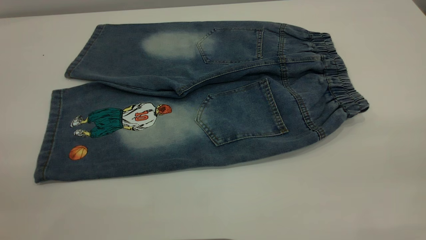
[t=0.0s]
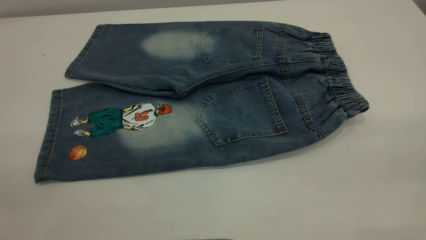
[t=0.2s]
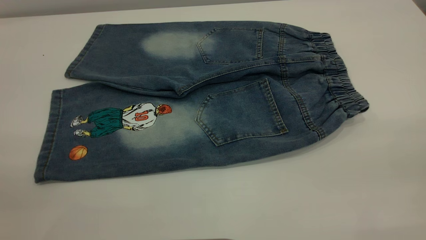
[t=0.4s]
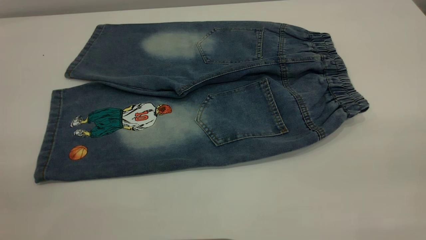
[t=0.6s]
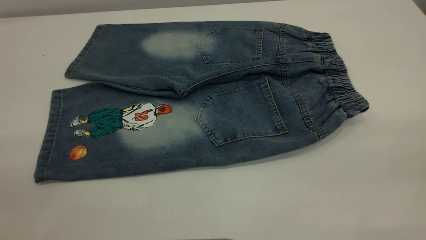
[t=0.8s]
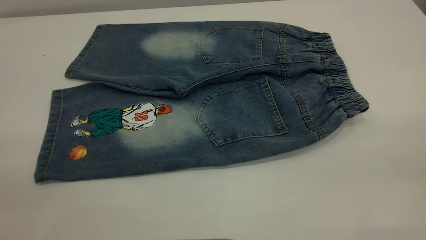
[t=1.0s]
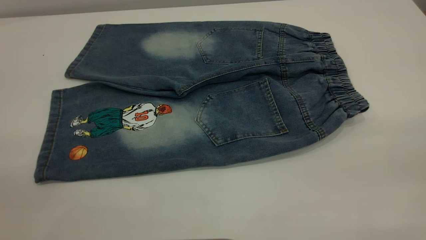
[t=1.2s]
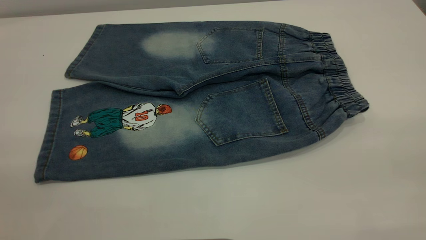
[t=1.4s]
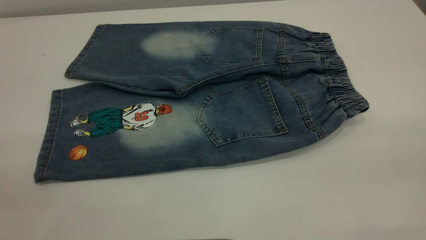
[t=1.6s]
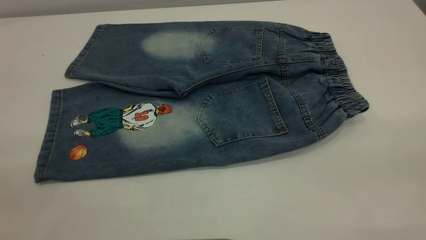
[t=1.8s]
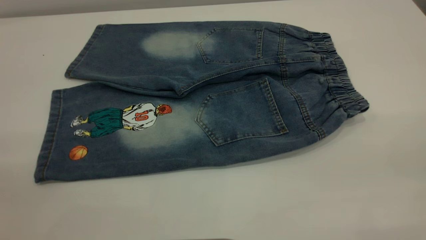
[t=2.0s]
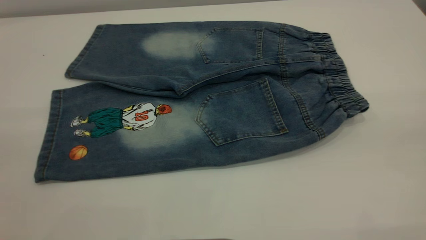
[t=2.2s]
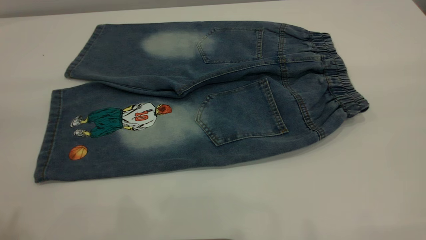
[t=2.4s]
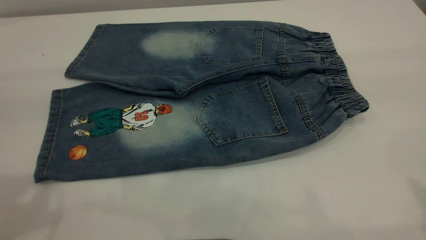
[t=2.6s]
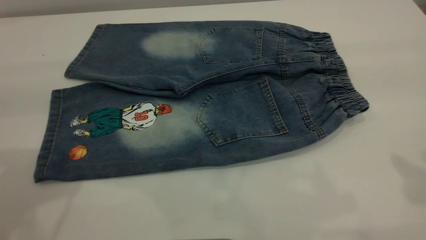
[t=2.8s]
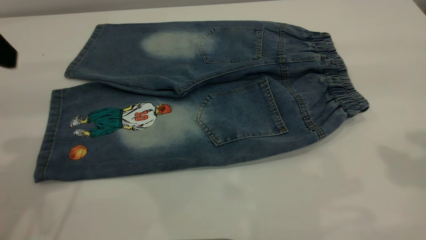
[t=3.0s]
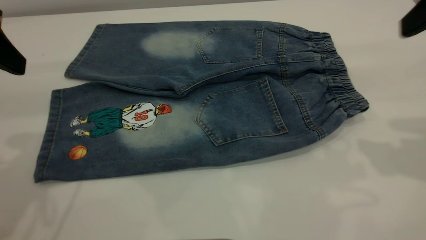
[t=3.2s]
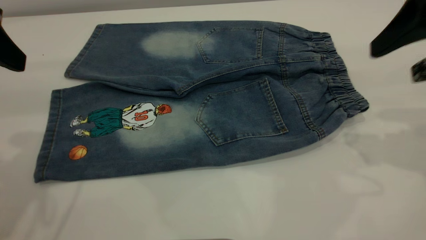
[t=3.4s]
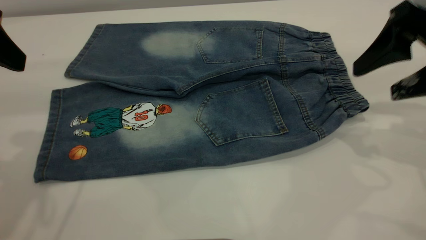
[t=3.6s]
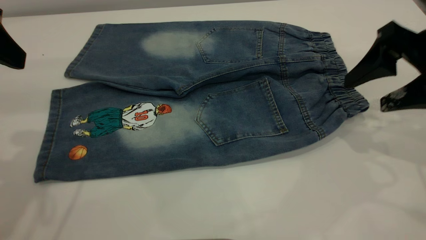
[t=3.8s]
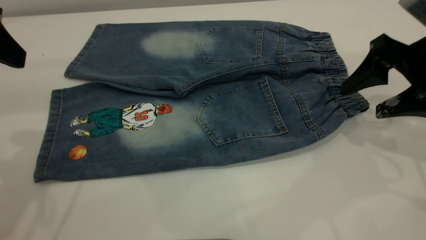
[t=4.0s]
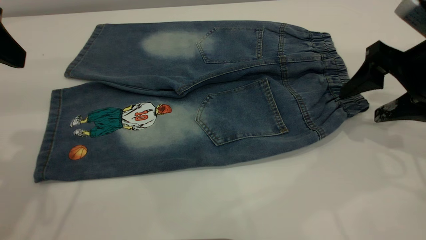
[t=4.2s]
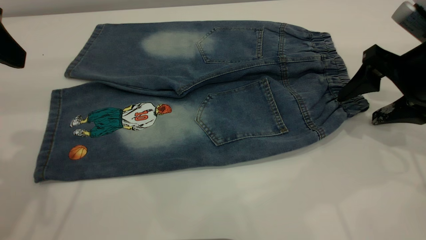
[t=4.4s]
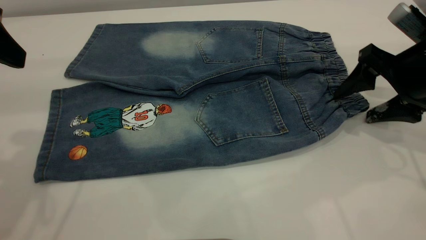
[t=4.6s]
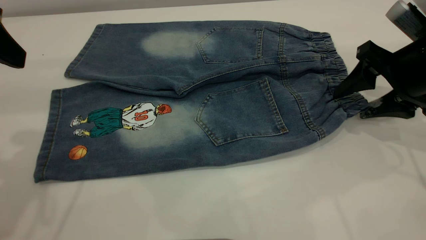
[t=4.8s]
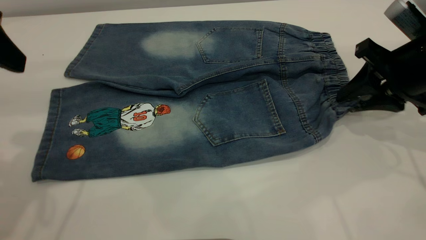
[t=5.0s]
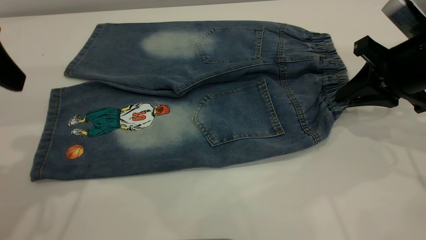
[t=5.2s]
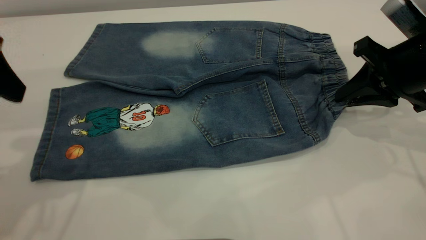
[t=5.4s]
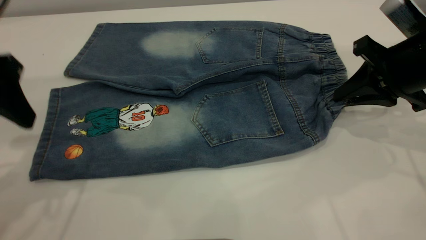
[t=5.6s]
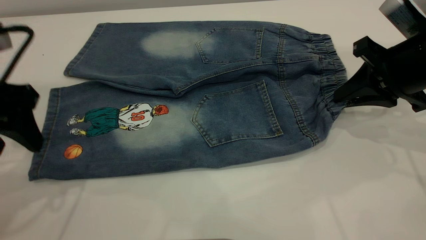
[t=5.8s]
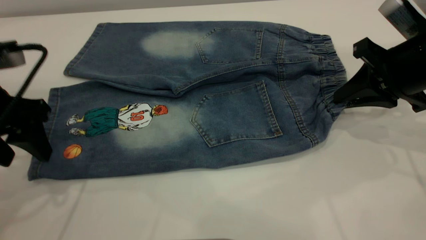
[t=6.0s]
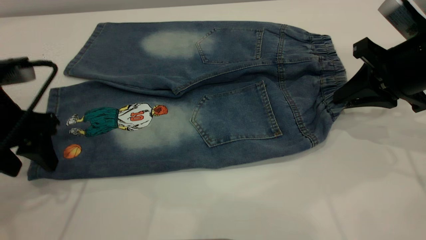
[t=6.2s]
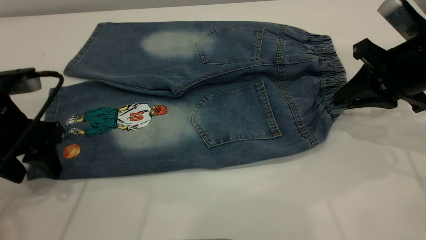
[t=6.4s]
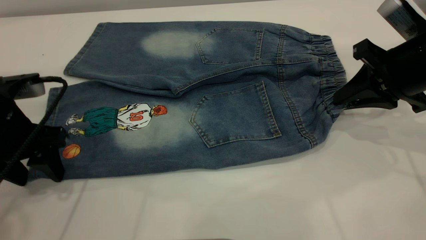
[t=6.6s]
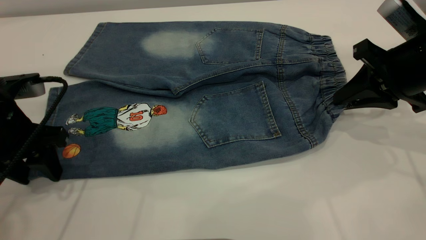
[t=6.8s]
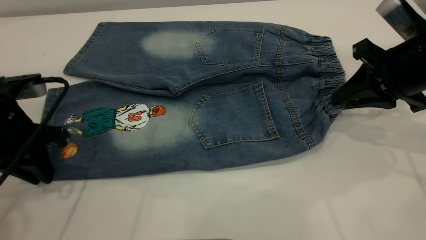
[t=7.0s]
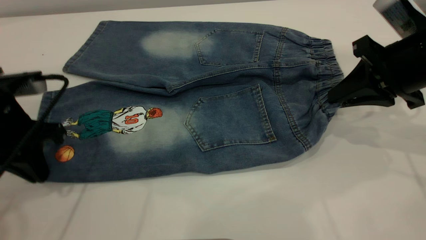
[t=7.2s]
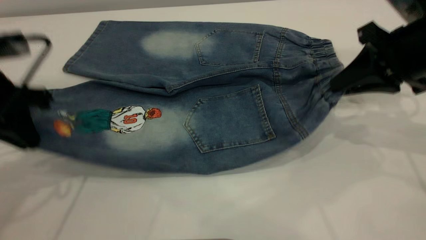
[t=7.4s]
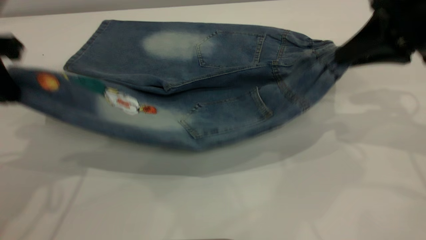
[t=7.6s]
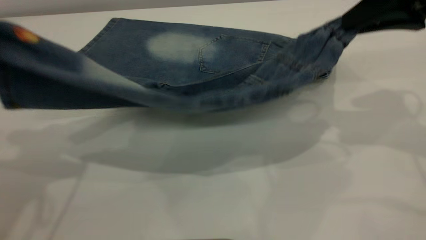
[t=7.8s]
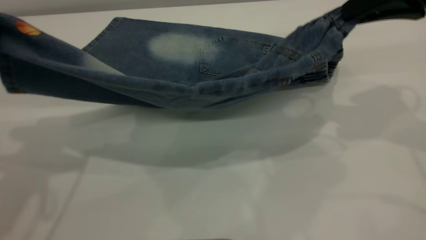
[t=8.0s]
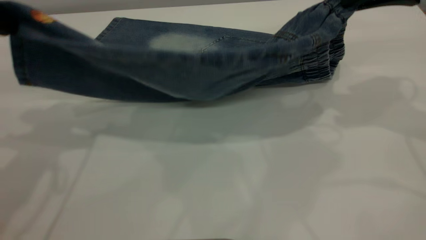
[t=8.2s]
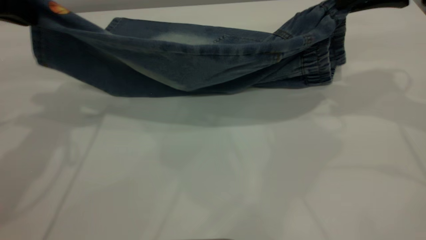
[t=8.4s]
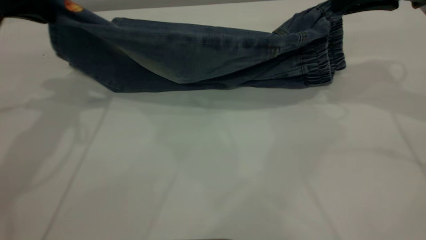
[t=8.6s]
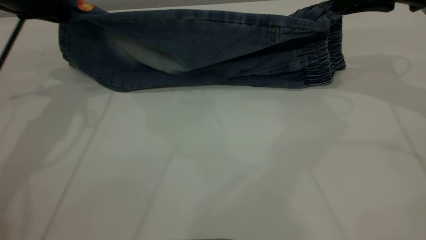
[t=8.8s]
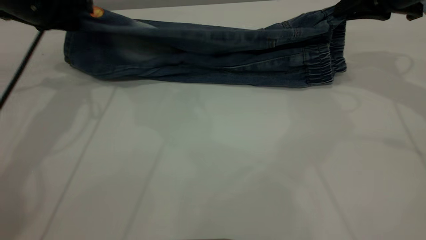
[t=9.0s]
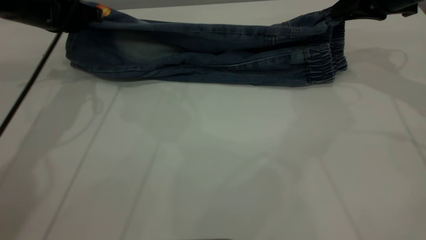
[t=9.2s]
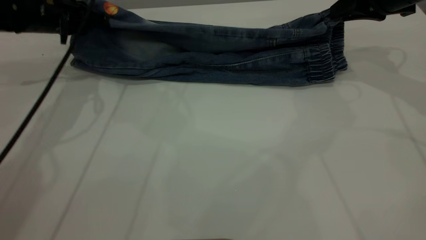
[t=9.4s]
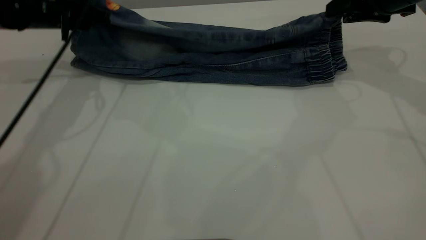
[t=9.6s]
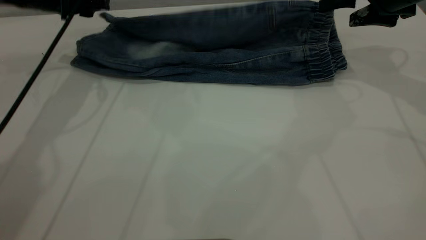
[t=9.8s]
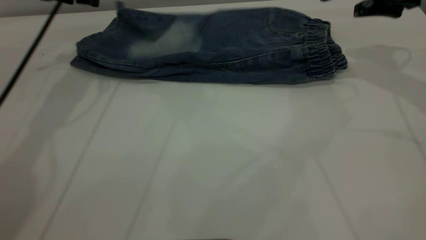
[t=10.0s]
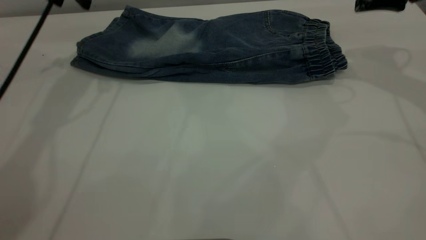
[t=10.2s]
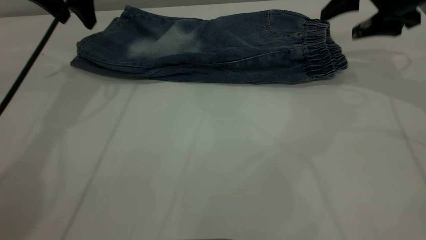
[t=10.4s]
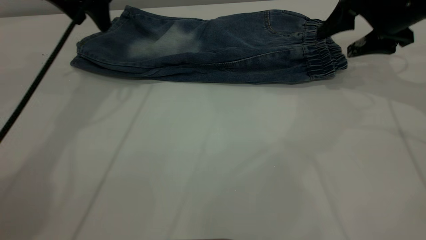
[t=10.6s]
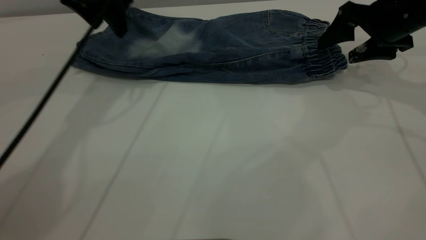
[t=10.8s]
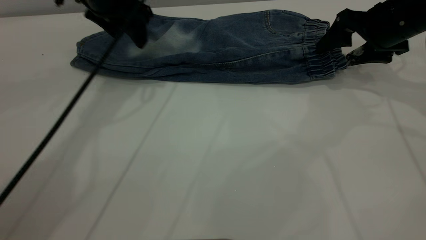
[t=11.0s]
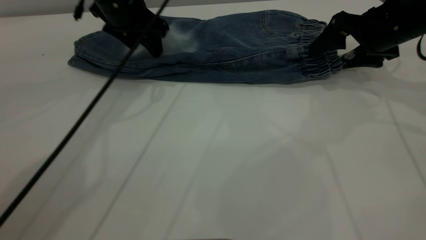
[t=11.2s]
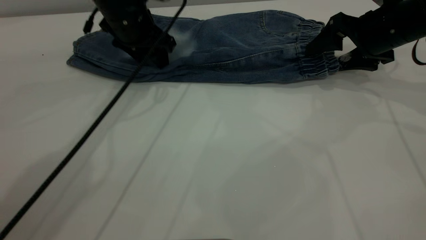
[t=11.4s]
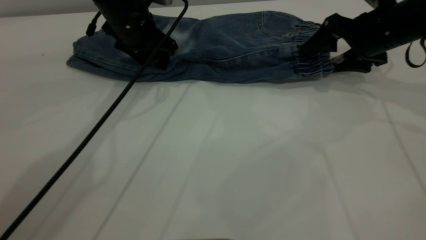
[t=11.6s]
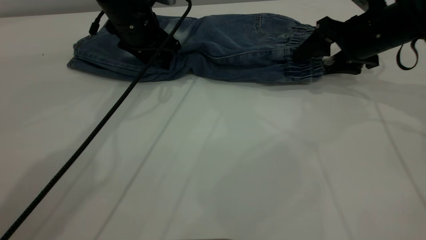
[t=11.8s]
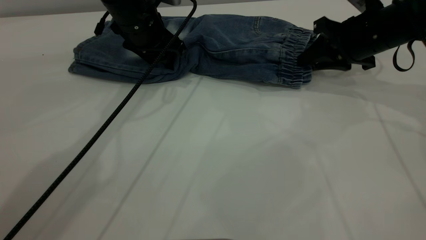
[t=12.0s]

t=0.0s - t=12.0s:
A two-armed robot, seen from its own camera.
Step, t=0.0s - t=10.0s: Fold the bottom of the pants upward.
t=0.0s - t=1.6s: The two grippers keep their place.
t=3.0s - t=4.4s: The right gripper heads downward and forward, covering roughly 20 cm.
t=4.4s - t=6.0s: The right gripper closes its fingers. Meanwhile the left gripper heads downward, covering about 10 cm.
t=6.0s - t=7.6s: Both grippers travel together upward, some 10 cm. The left gripper closes.
t=7.6s - t=9.0s: The left gripper moves forward and downward, roughly 20 cm. Meanwhile the right gripper moves forward, about 10 cm.
t=9.0s - t=10.4s: The left gripper shifts by about 5 cm, and opens up. Meanwhile the right gripper opens up.
t=10.4s - t=12.0s: The left gripper travels downward and to the right by roughly 15 cm. Meanwhile the right gripper heads downward, covering roughly 5 cm, and closes its fingers.

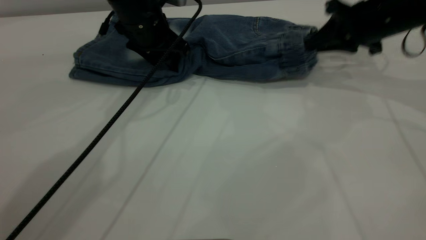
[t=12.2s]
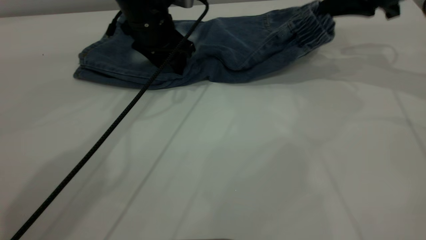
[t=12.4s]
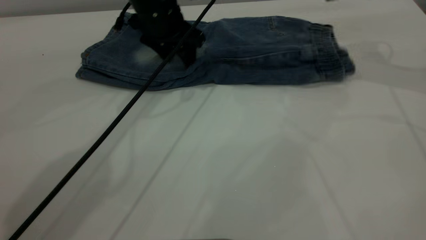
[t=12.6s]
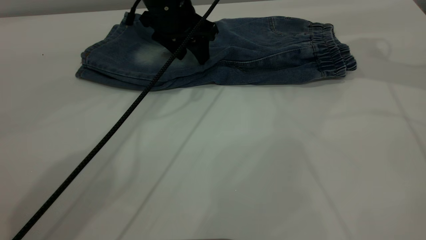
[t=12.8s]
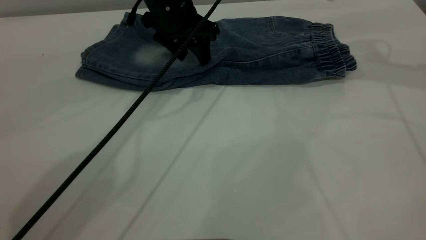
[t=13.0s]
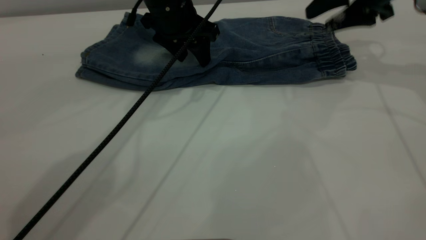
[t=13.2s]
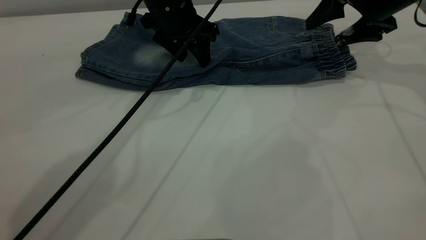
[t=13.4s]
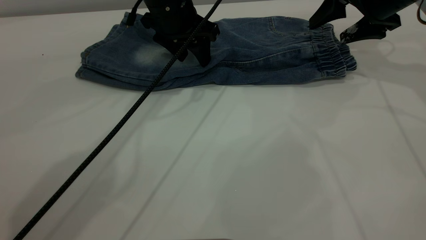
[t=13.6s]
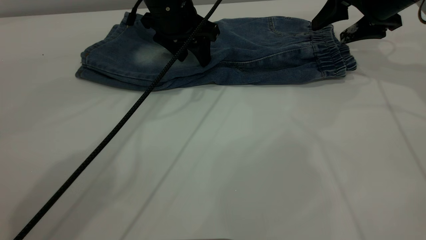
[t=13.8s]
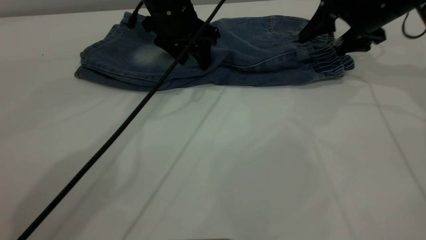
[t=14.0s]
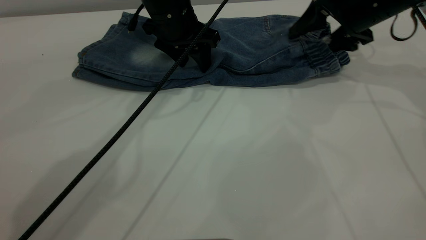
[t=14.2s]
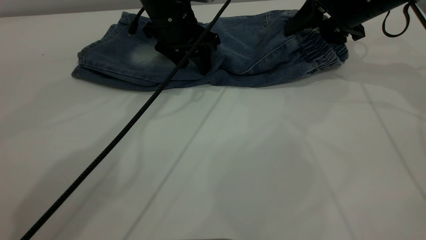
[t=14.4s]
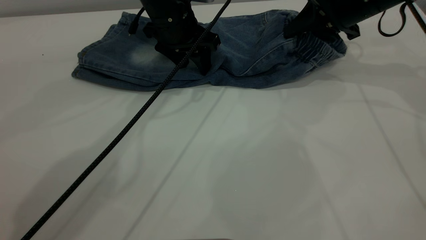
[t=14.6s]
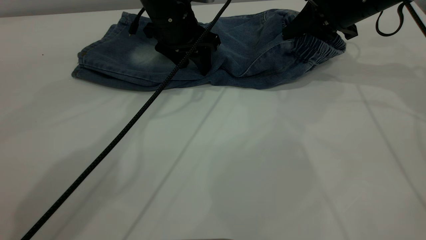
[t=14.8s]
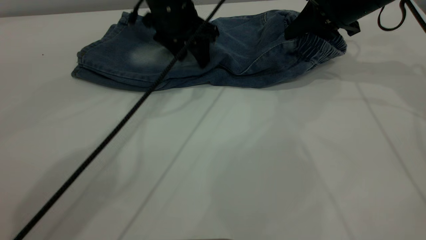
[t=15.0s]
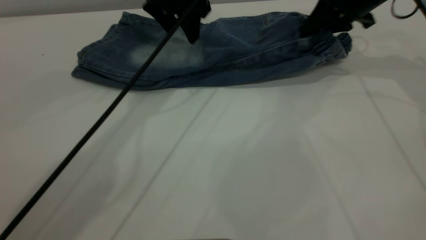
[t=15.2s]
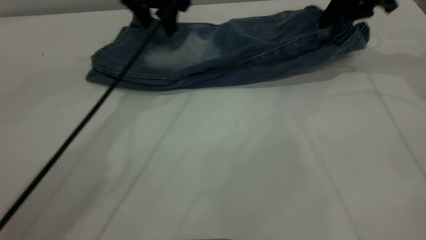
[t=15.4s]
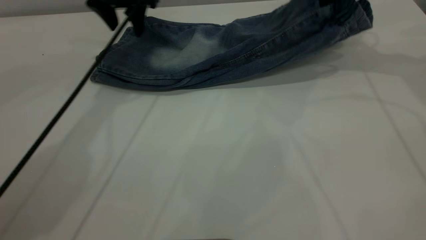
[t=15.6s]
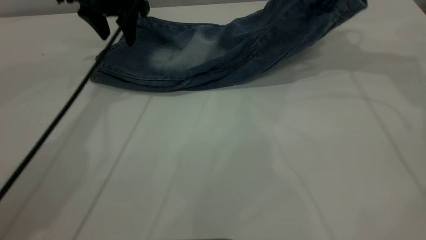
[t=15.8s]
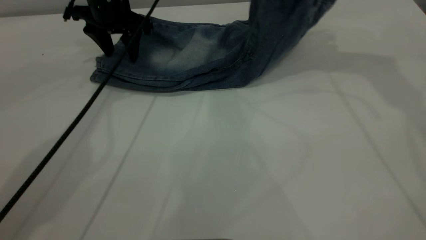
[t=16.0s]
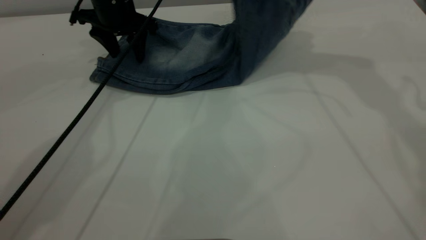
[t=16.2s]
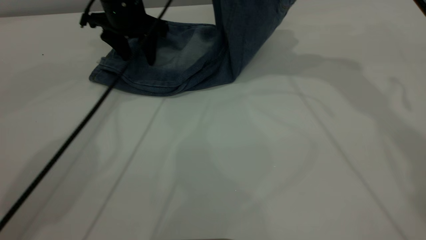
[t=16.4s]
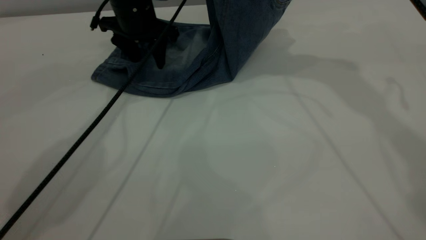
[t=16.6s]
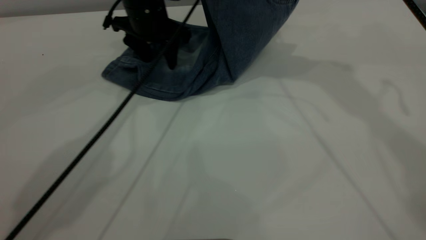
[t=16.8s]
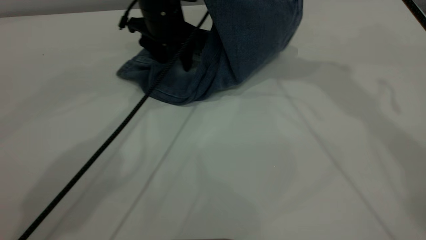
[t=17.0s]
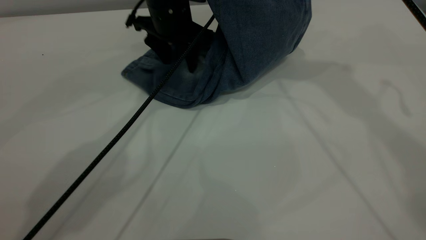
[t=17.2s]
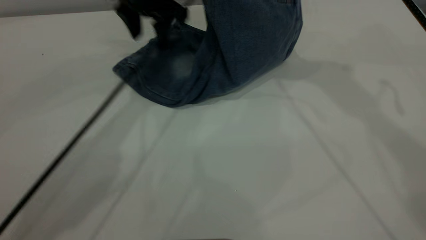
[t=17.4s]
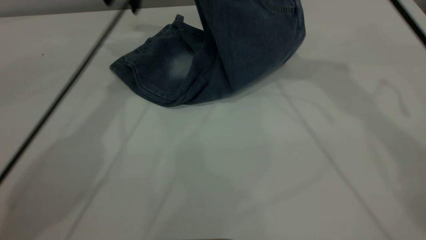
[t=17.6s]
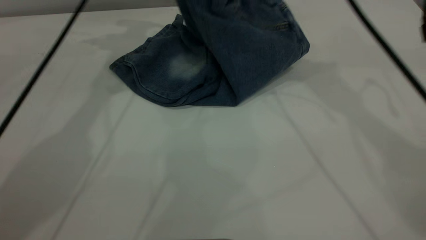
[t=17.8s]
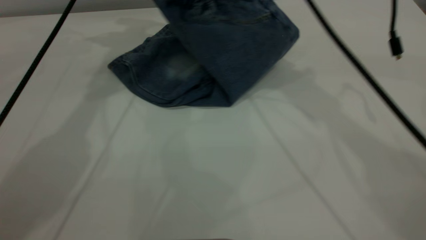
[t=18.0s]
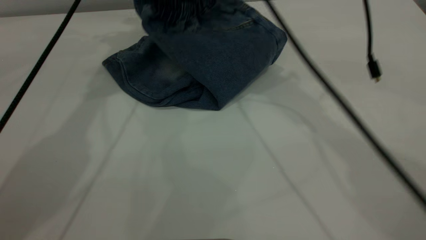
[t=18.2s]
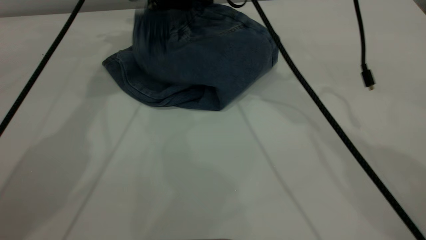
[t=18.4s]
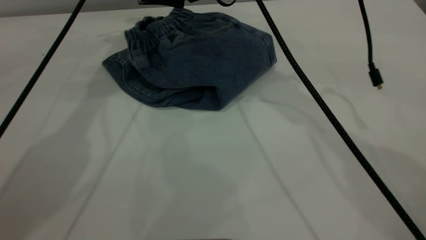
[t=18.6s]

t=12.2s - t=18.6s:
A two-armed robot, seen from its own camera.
t=12.2s - t=13.8s: The right gripper travels upward and back again, some 10 cm each way, and opens.
t=13.8s - t=15.4s: The left gripper moves approximately 5 cm. Meanwhile the right gripper closes.
t=15.4s - t=17.0s: The right gripper shifts about 20 cm to the left and upward. The left gripper heads downward, covering roughly 5 cm.
t=17.0s - t=18.6s: The left gripper goes approximately 20 cm upward, to the left and forward, while the right gripper shifts approximately 15 cm to the left and downward, and opens its fingers.
